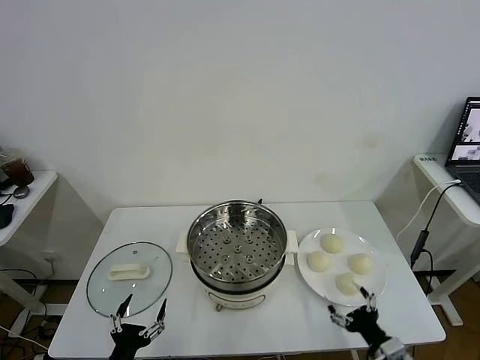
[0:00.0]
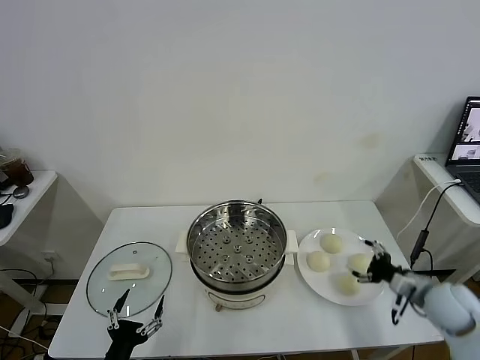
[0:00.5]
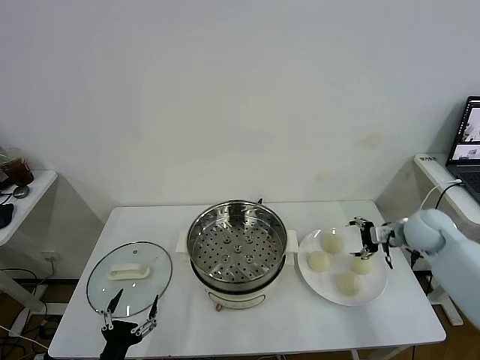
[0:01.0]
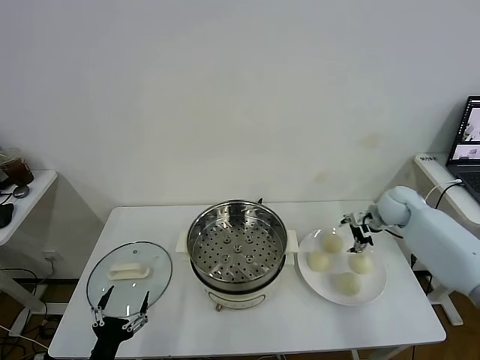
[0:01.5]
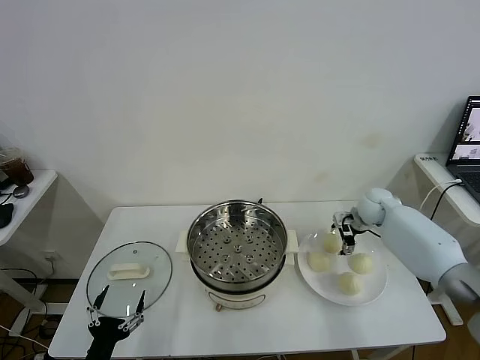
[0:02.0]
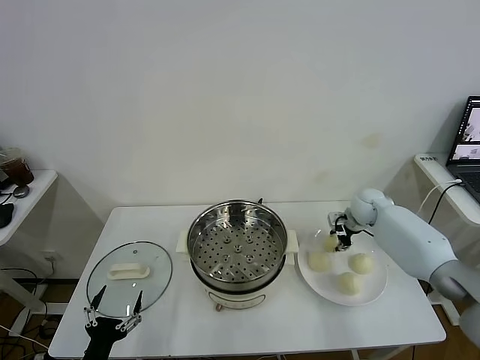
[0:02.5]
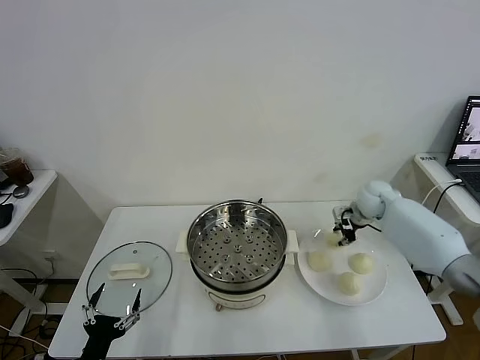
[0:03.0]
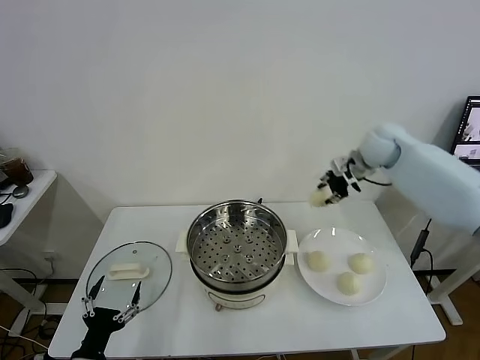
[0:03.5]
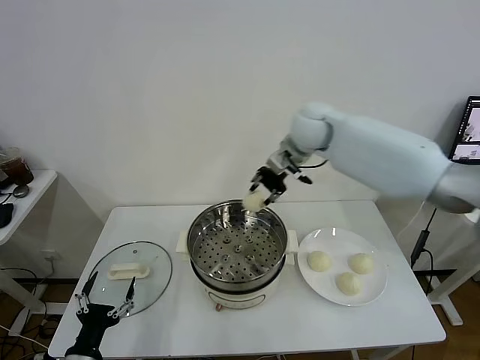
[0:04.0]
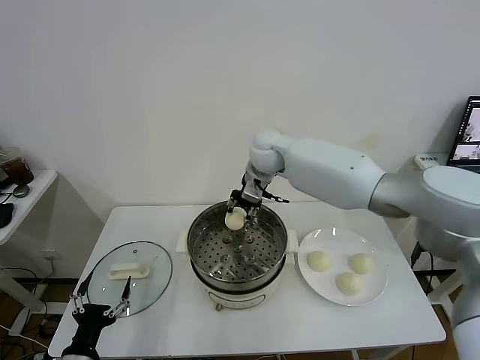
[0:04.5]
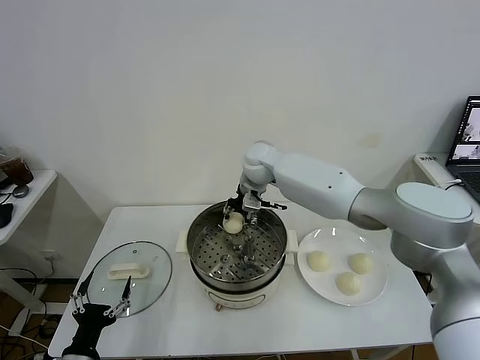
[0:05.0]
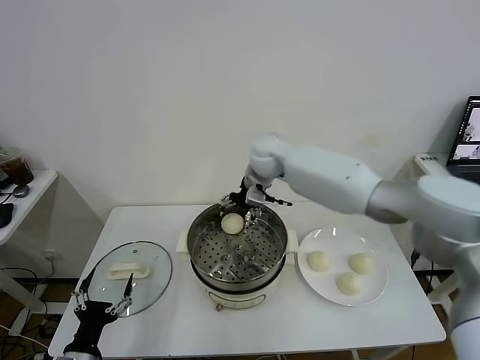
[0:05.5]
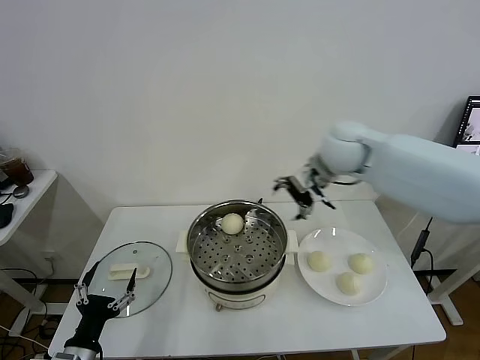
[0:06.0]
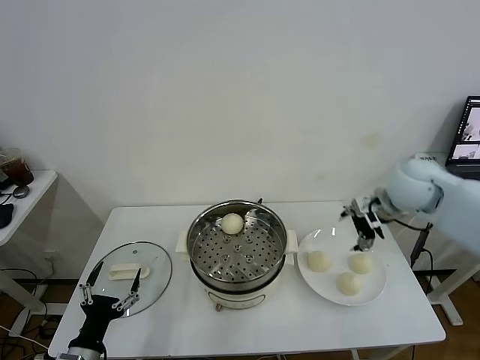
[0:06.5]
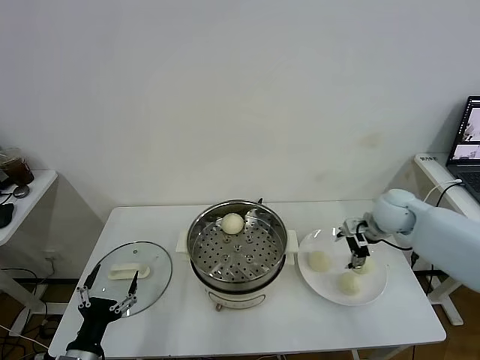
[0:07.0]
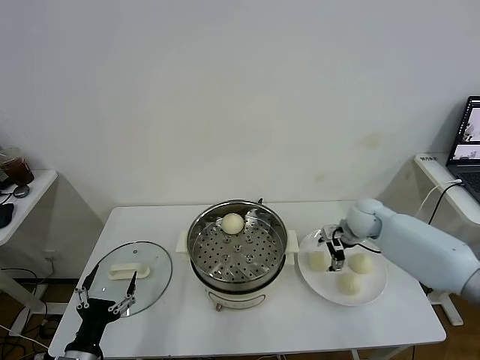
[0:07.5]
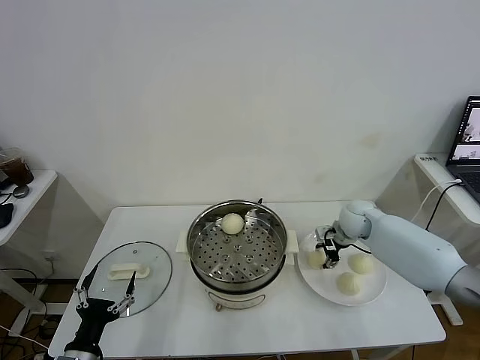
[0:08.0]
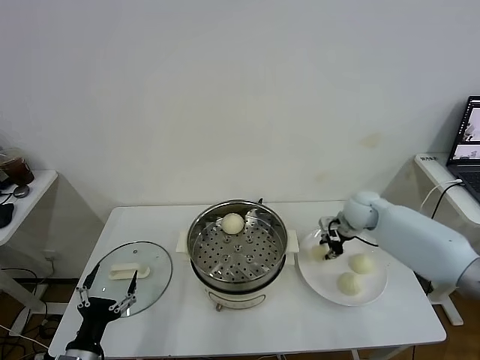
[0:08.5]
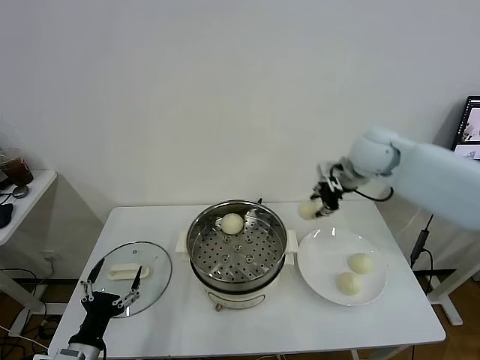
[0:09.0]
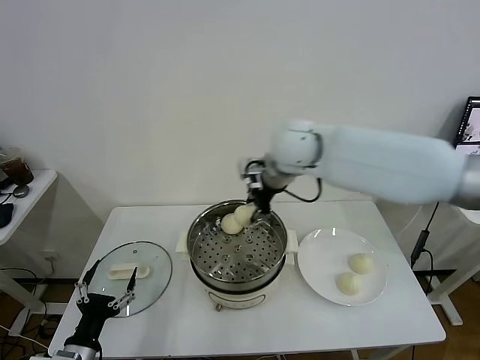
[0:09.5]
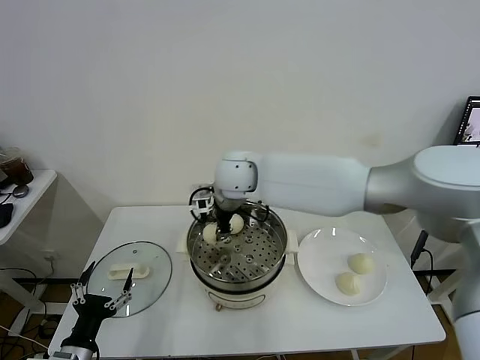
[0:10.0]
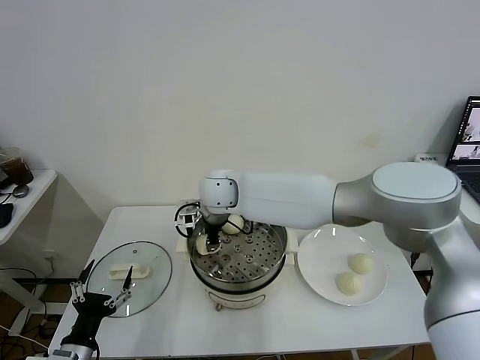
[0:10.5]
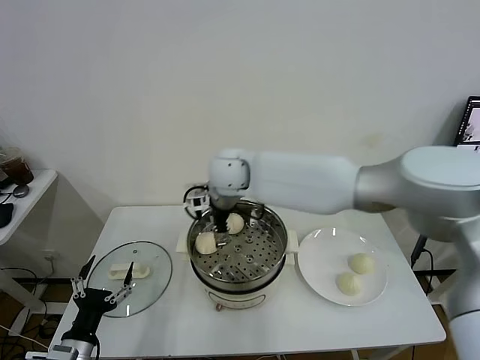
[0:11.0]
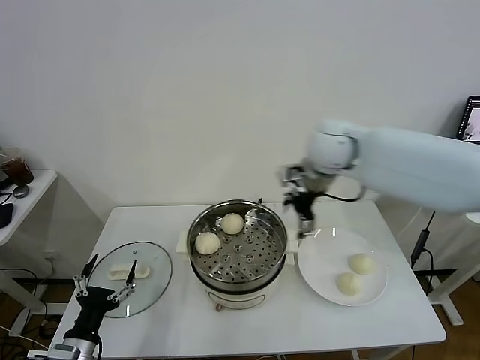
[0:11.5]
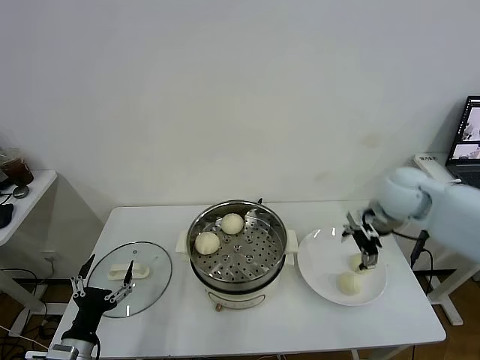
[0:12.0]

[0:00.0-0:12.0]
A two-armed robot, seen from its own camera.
Task of the whole recording: take steamed baozi put them in steamer.
Step, 0:00.0 to 0:02.5: Grasp the baozi in the plate with right gripper.
Step, 0:03.0 to 0:05.5: Place the baozi on the steamer with right gripper.
Step, 0:06.0 to 0:08.0: Grasp the baozi in the plate with right gripper.
Step, 0:08.5 to 0:10.5: Place the baozi on the steamer with right gripper.
0:02.0 to 0:04.0: The right gripper travels to the left and upward by approximately 35 cm, and closes up.
0:04.0 to 0:06.0: The right gripper moves to the right and backward, approximately 15 cm, and opens its fingers.
0:06.0 to 0:08.0: The right gripper moves downward, about 25 cm, and closes its fingers.
0:08.0 to 0:10.0: The right gripper shifts some 35 cm to the left and upward.
0:10.0 to 0:12.0: The right gripper is displaced to the right by some 35 cm, and opens.

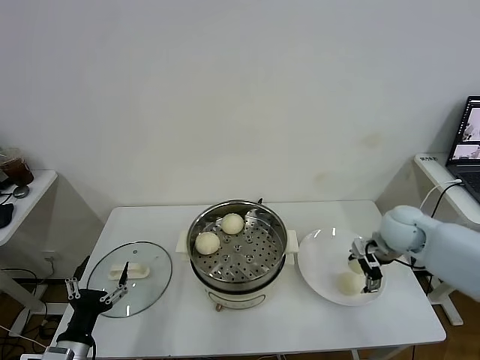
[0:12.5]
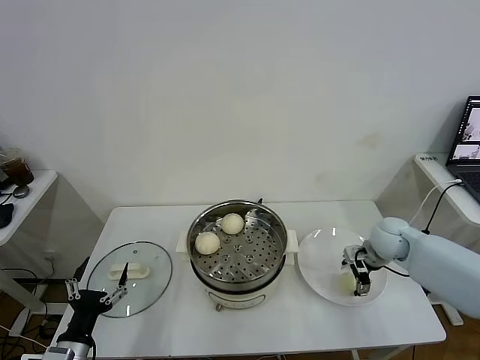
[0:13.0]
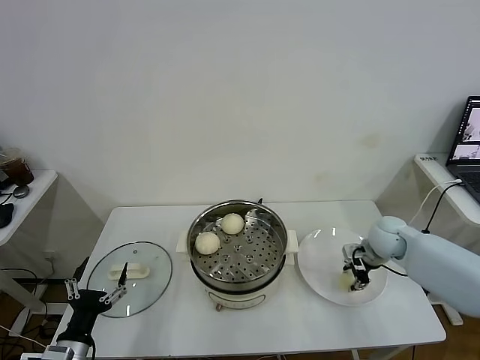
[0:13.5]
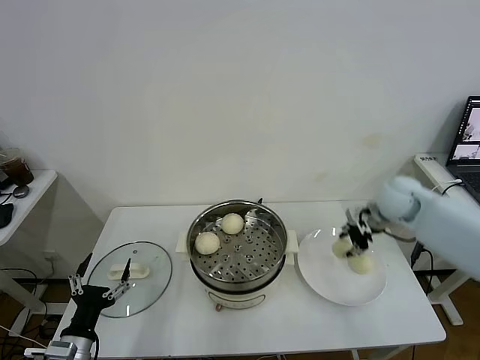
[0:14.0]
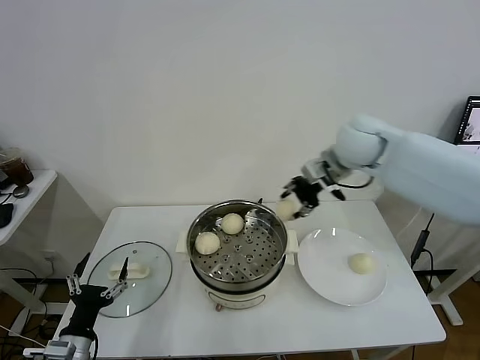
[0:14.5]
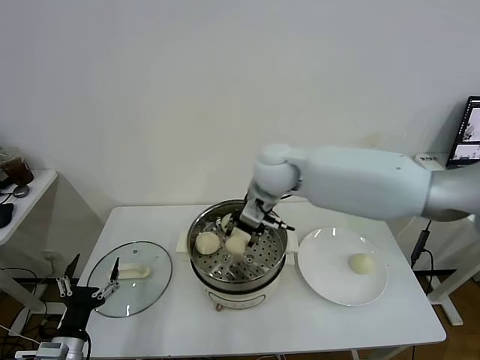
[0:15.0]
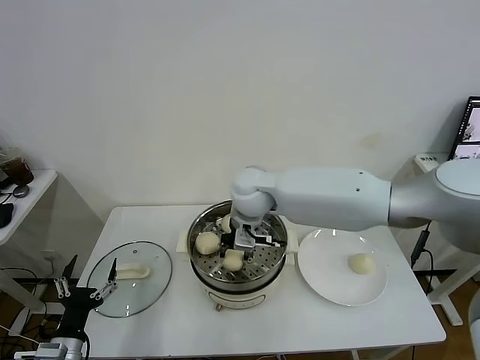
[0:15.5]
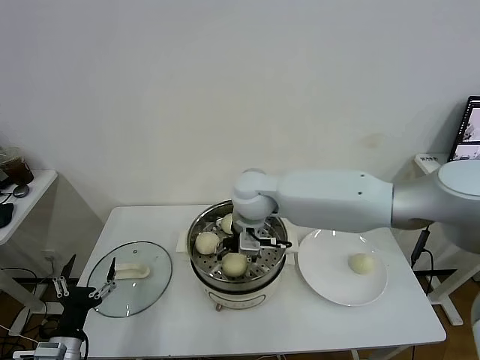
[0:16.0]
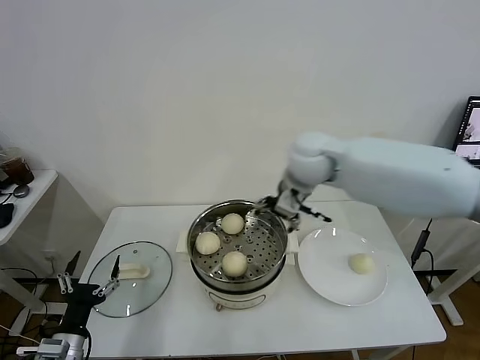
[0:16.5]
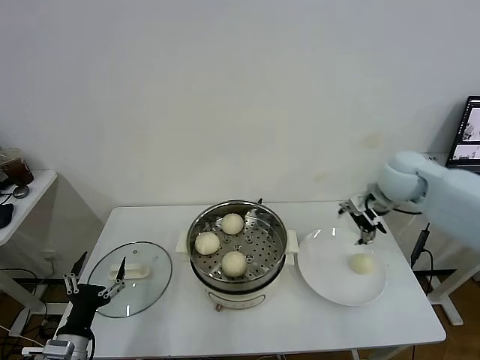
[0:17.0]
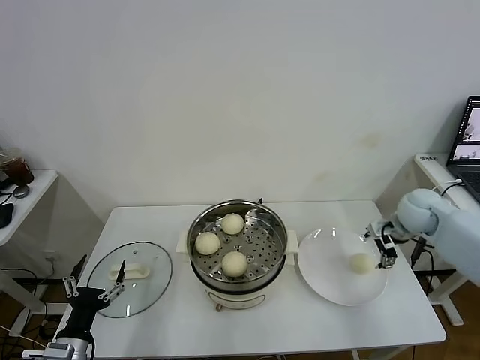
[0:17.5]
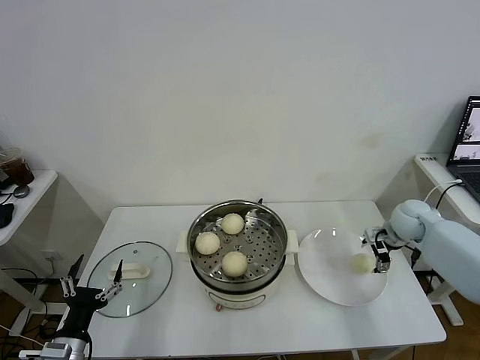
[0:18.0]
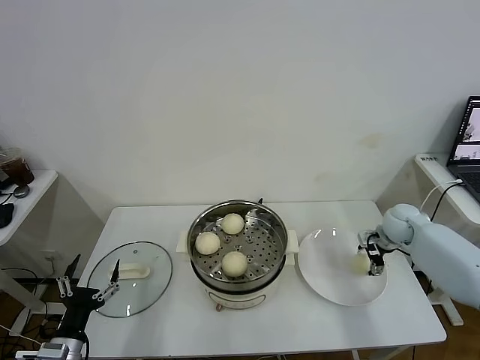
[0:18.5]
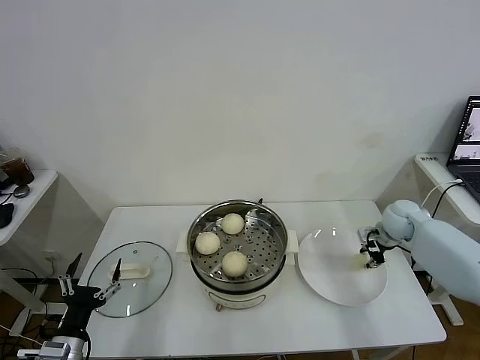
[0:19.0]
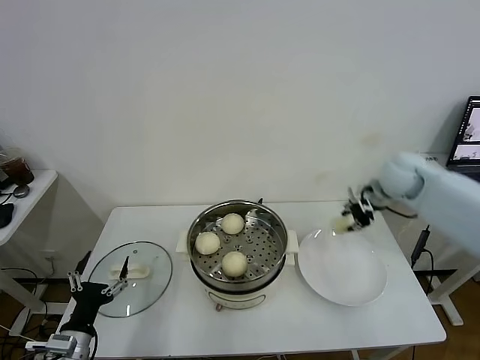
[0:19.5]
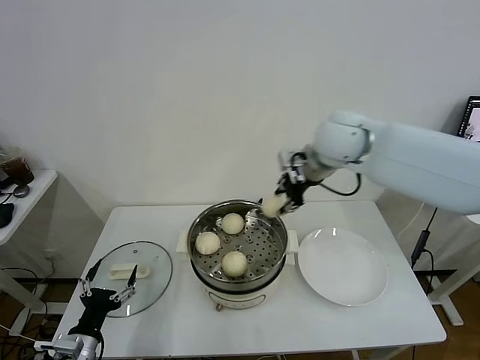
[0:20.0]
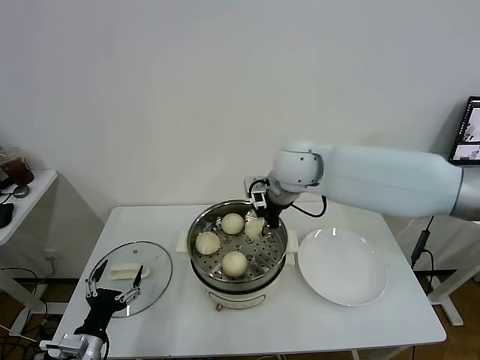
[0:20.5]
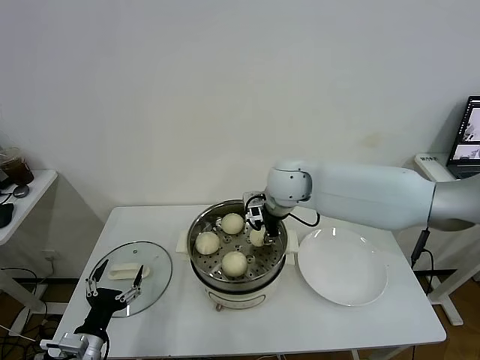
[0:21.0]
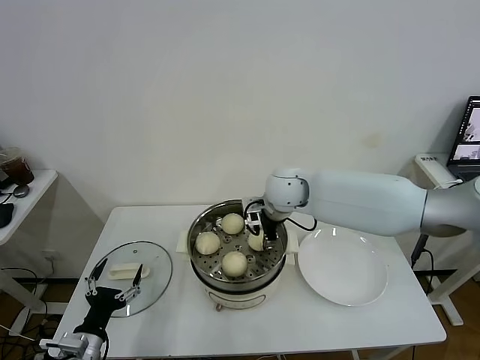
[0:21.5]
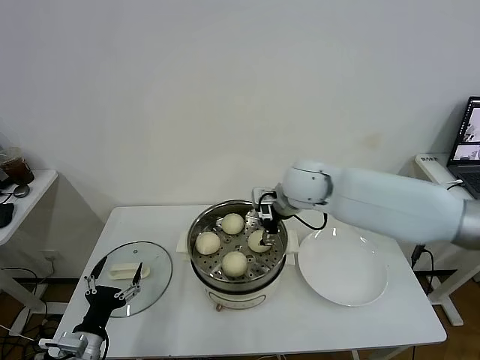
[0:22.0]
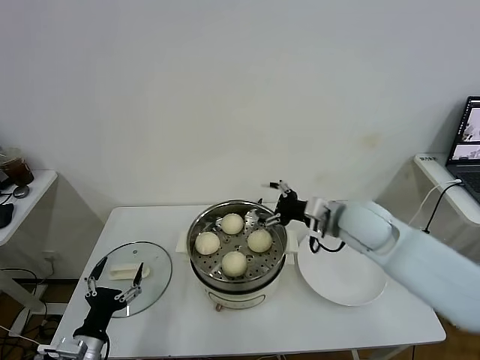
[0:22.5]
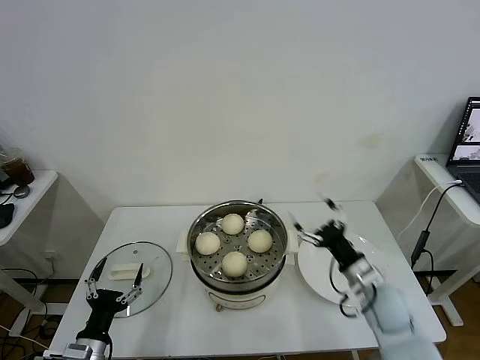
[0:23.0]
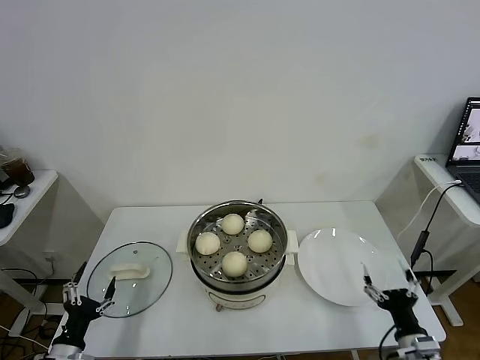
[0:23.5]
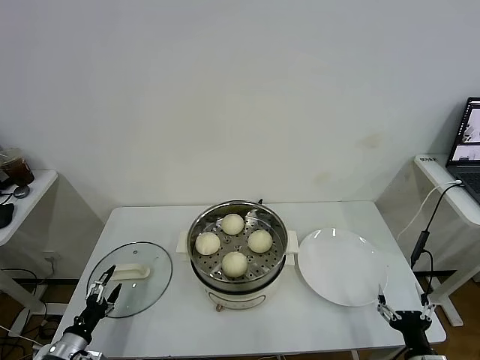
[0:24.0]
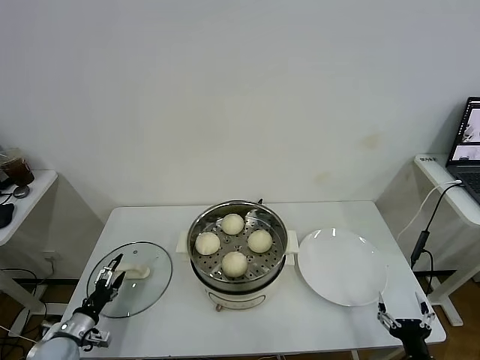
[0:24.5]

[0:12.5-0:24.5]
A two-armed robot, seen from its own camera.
Task of the whole recording: take steamed baozi put them in steamer.
Step, 0:13.5 to 0:16.0: Place the baozi on the steamer with right gripper.
Step, 0:16.5 to 0:19.0: Grasp the baozi in the plate with right gripper.
Step, 0:19.5 to 0:21.5: Place the baozi on the steamer with right gripper.
0:12.5 to 0:14.5: The right gripper shifts roughly 25 cm upward and to the left, and closes its fingers.
0:14.5 to 0:16.5: The right gripper reaches roughly 15 cm to the left, then returns, and opens.
0:16.5 to 0:18.5: The right gripper goes roughly 35 cm to the right and downward.
0:18.5 to 0:20.5: The right gripper shifts approximately 35 cm to the left and upward, and closes.
0:20.5 to 0:22.5: The right gripper heads to the right, downward and backward, covering about 15 cm, and opens its fingers.
0:22.5 to 0:24.5: The left gripper is displaced to the left, downward and forward by approximately 15 cm. Meanwhile the right gripper travels backward, downward and to the right by some 40 cm.

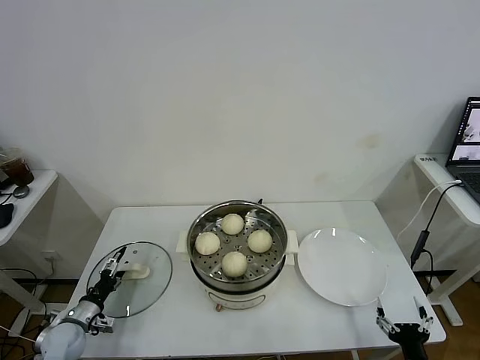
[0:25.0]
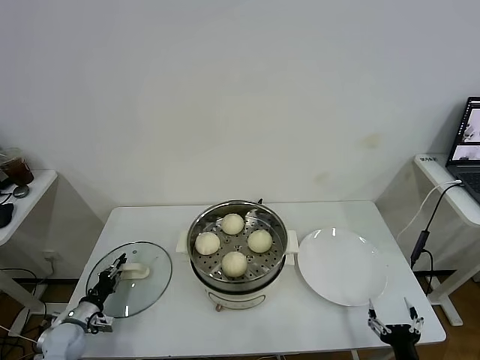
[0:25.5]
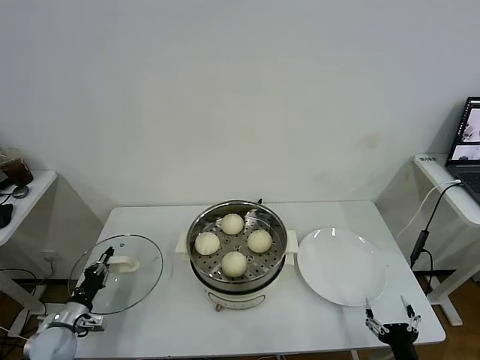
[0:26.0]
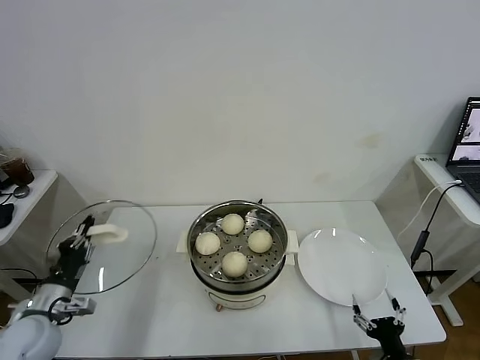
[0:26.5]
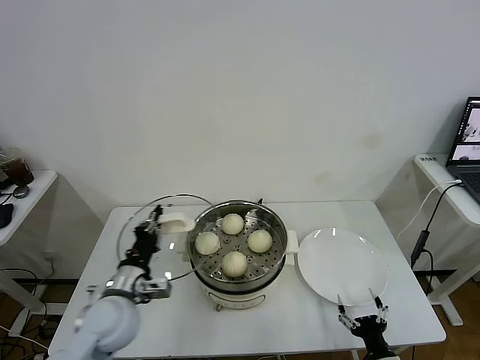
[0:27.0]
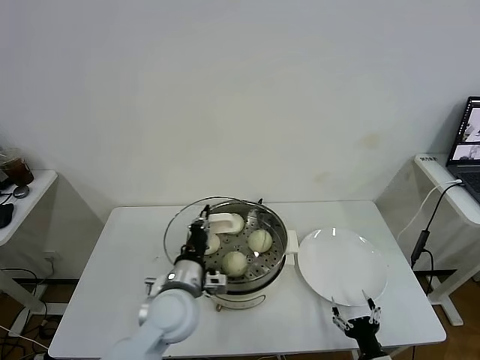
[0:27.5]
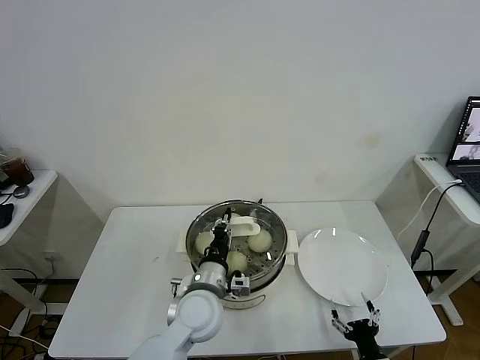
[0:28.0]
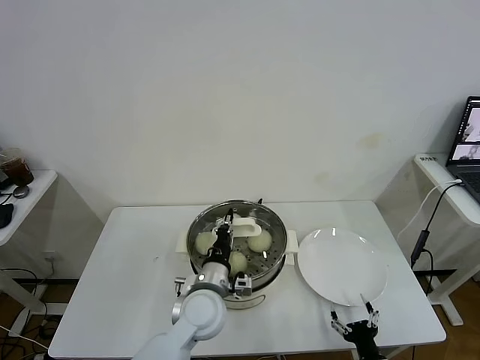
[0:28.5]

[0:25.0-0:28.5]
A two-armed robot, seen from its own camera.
Task of the whole recording: take steamed baozi put them in steamer.
0:25.0 to 0:27.0: The right gripper moves about 5 cm, while the left gripper is displaced upward and to the right by approximately 25 cm, and closes its fingers.
0:27.0 to 0:28.5: The left gripper shifts some 20 cm to the right.
